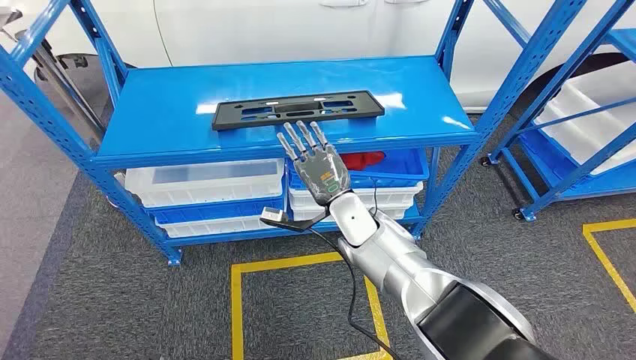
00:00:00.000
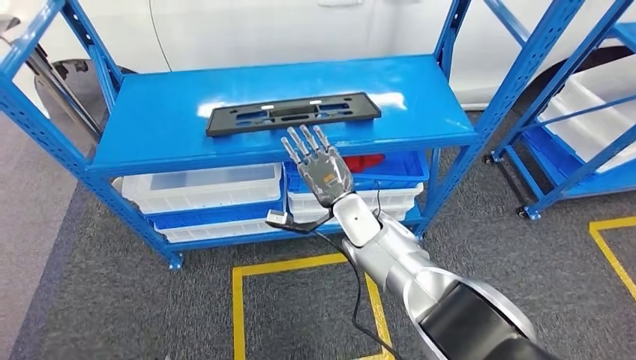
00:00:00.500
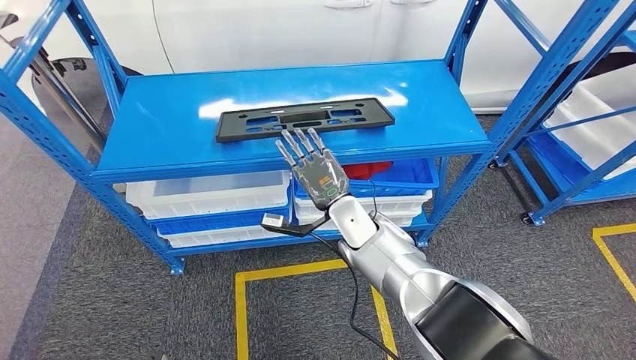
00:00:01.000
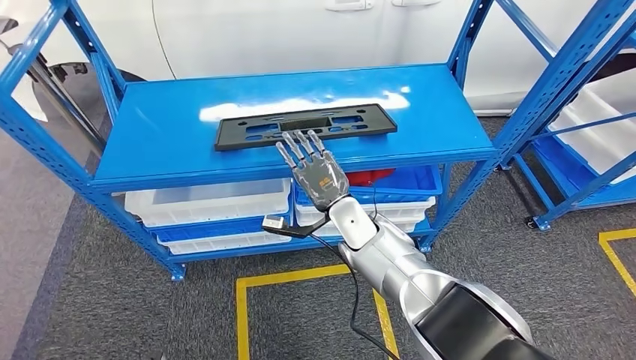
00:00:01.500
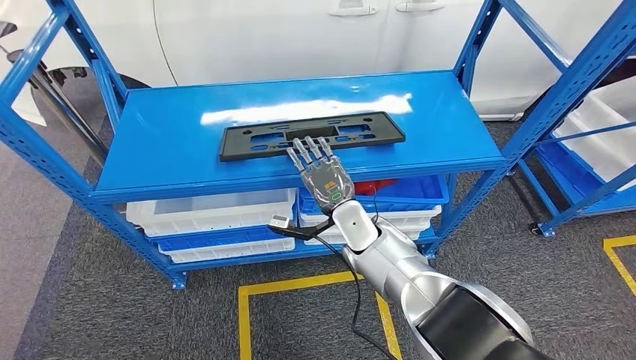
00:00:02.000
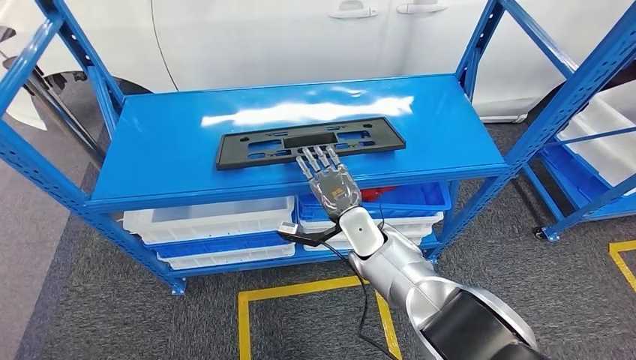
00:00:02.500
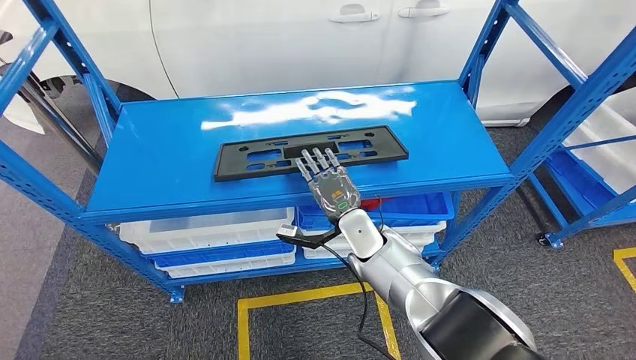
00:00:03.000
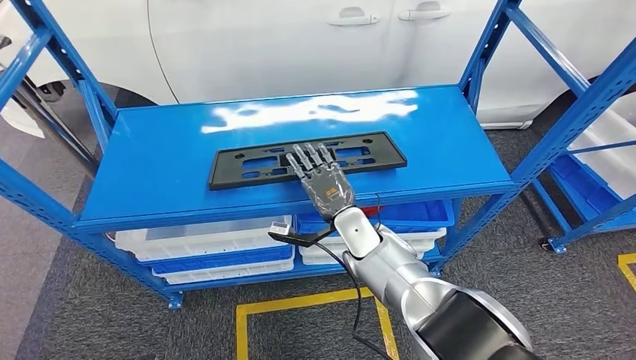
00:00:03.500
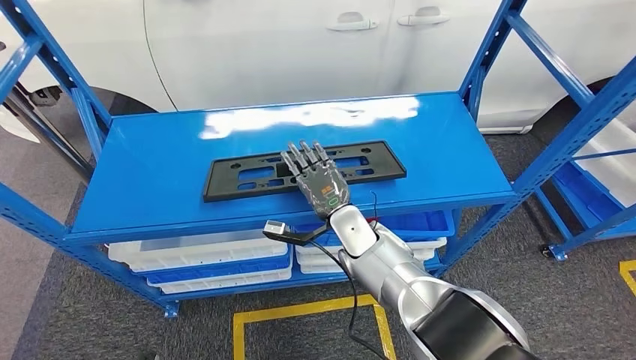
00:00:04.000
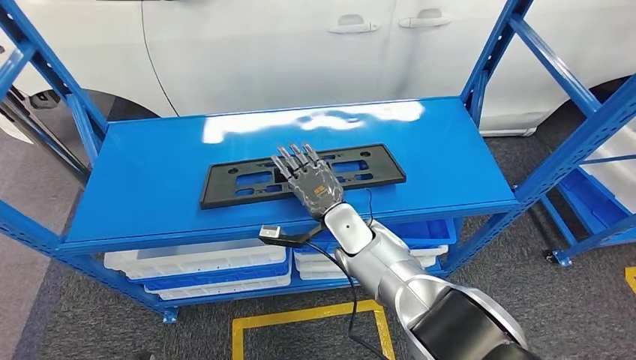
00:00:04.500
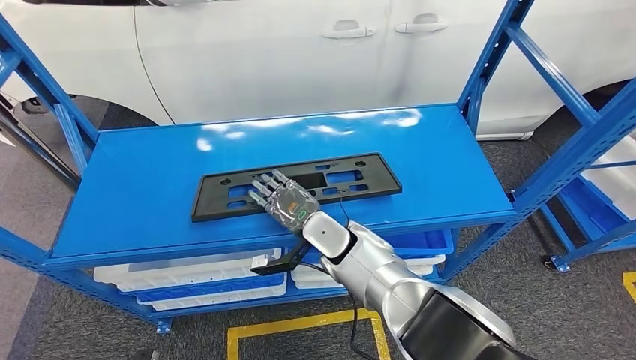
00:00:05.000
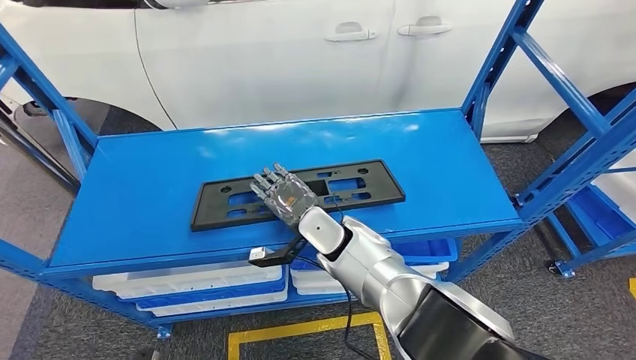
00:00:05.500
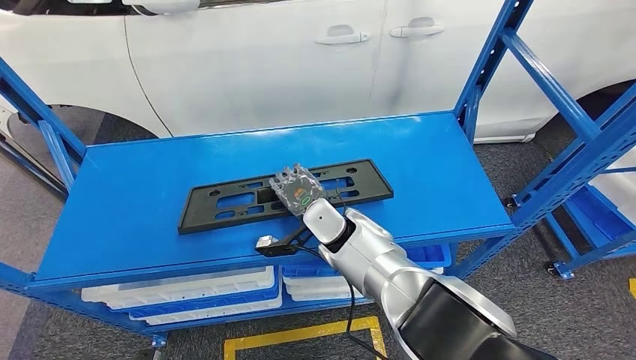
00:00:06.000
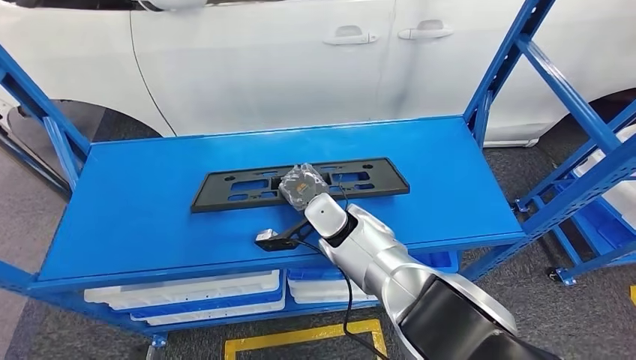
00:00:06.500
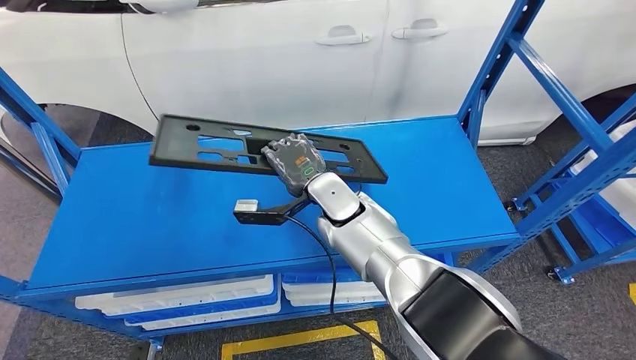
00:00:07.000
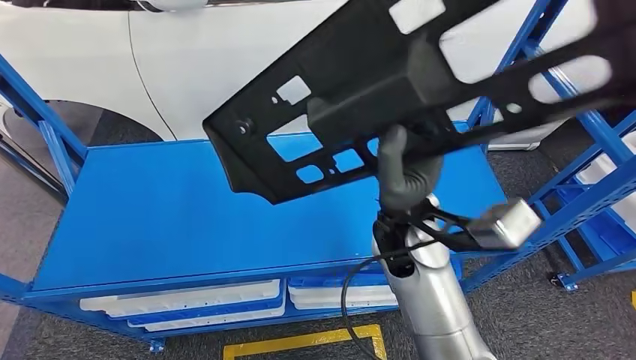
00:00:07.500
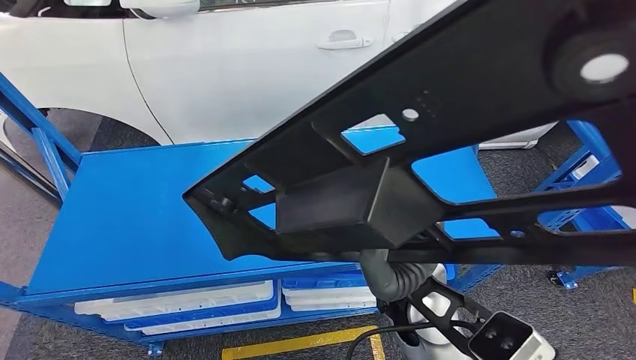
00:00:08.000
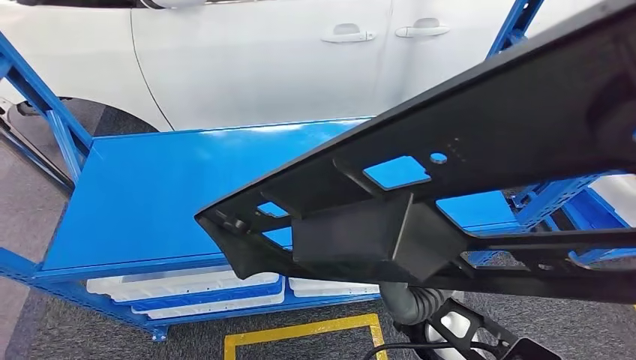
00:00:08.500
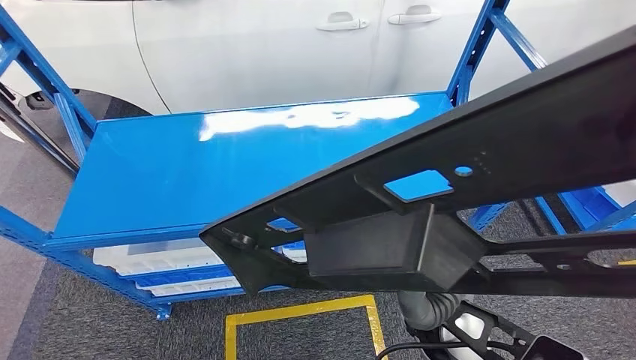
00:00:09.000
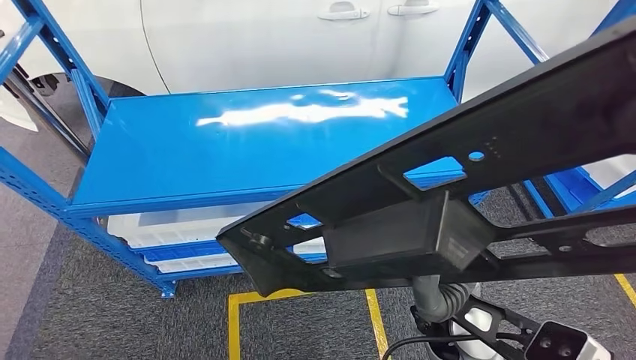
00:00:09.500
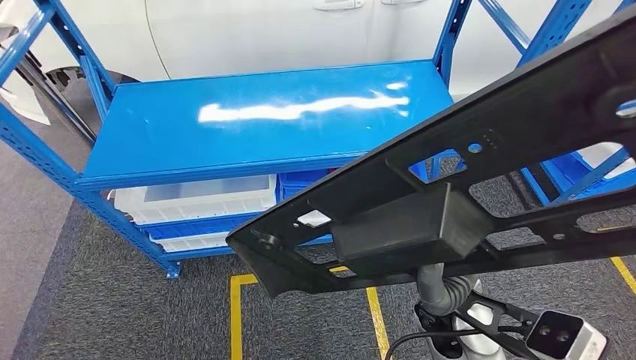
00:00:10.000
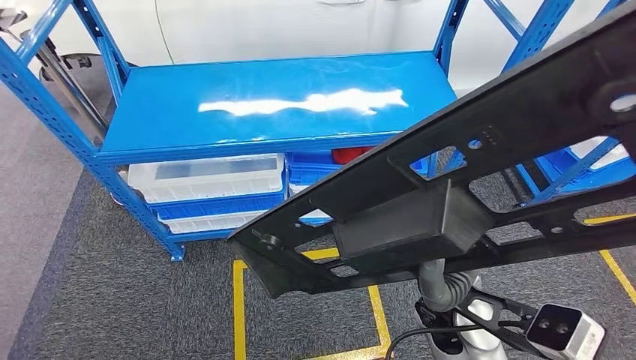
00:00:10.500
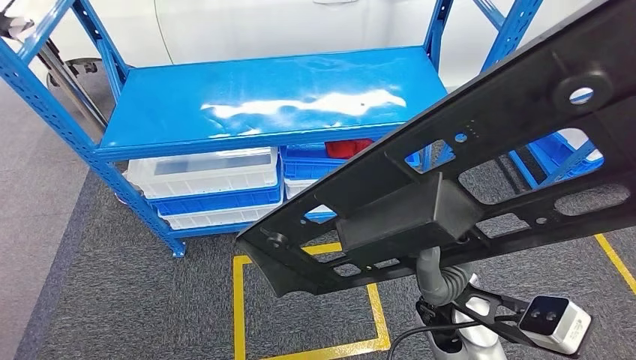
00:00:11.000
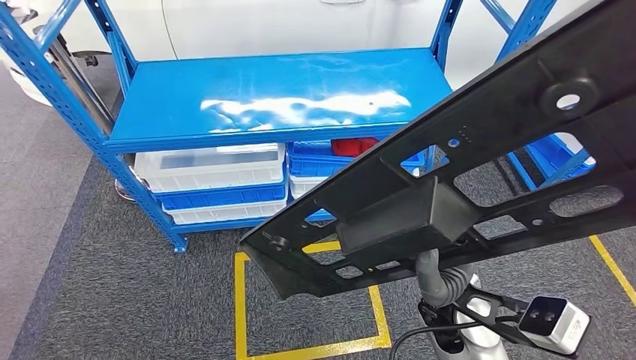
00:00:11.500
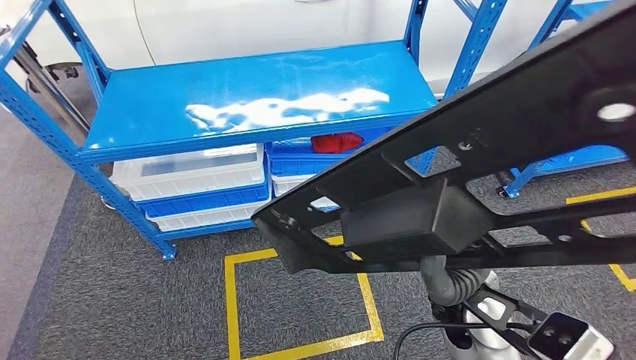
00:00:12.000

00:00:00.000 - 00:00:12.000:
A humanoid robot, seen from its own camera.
Step, 00:00:00.000 - 00:00:08.000: Pick up the large material from the shelf.

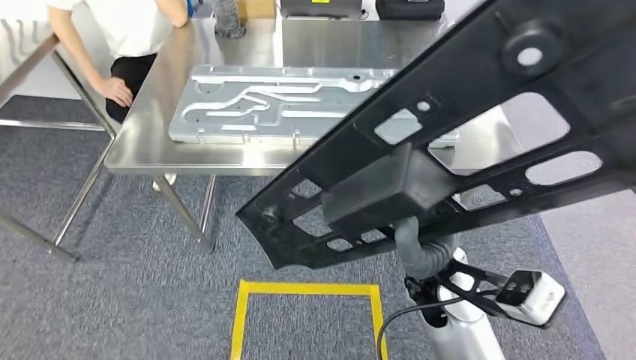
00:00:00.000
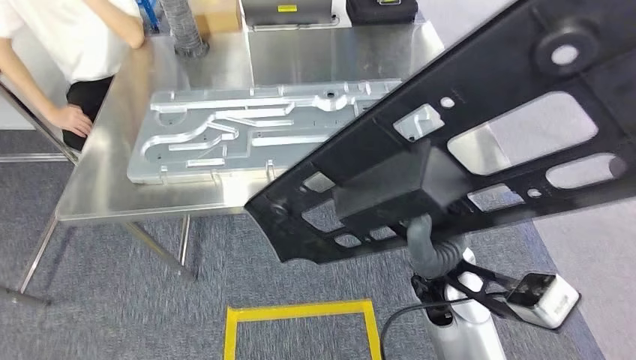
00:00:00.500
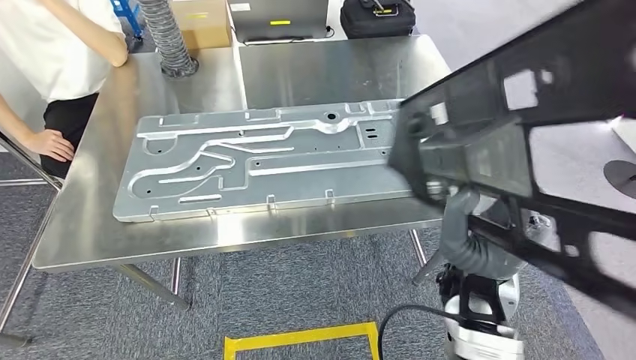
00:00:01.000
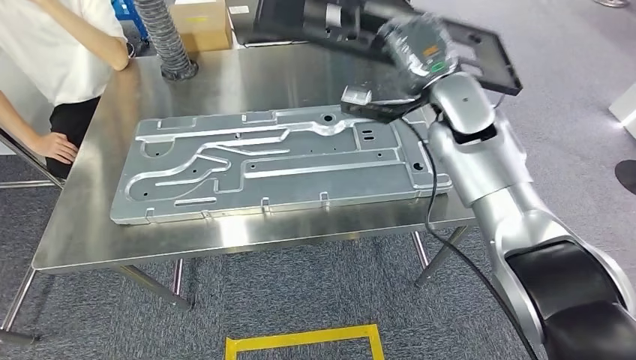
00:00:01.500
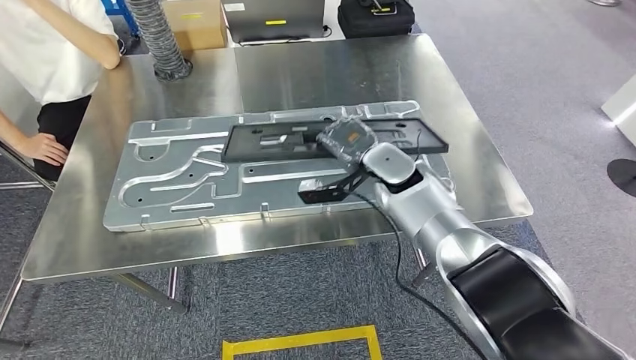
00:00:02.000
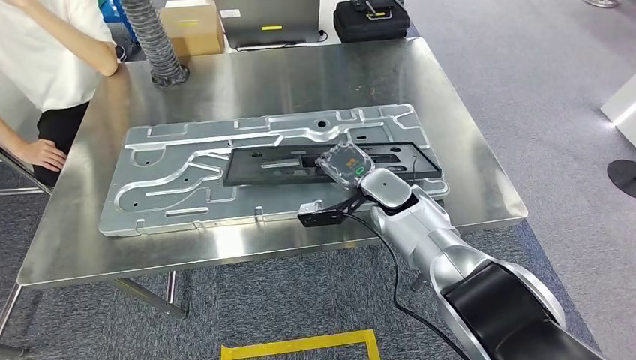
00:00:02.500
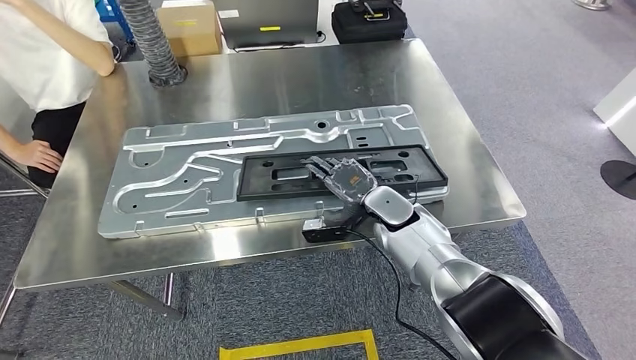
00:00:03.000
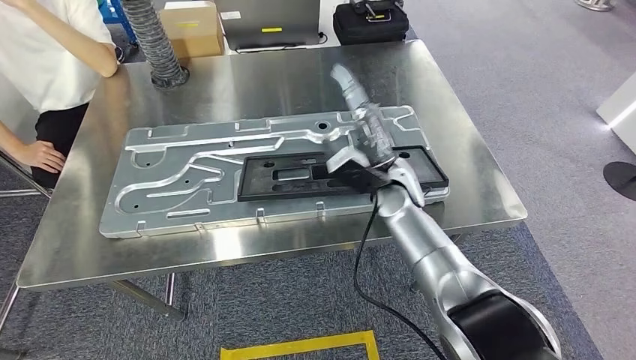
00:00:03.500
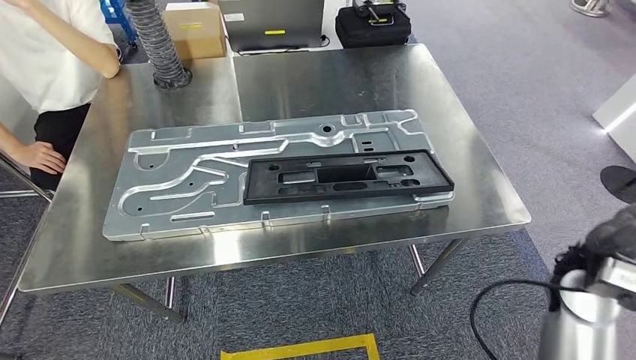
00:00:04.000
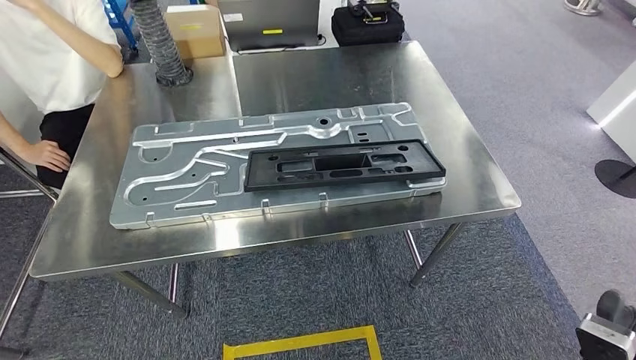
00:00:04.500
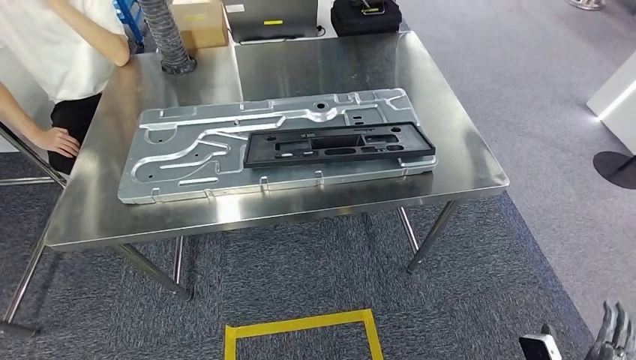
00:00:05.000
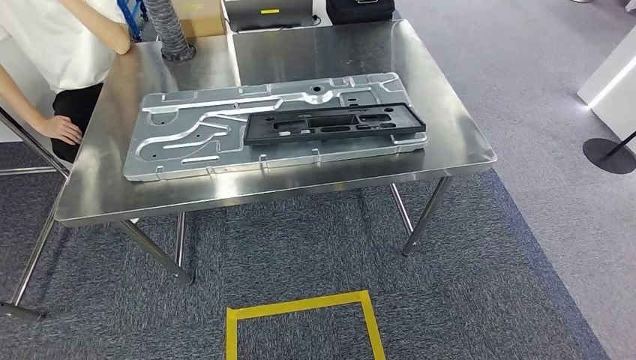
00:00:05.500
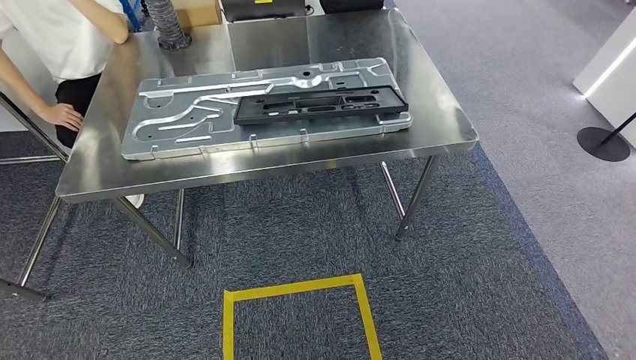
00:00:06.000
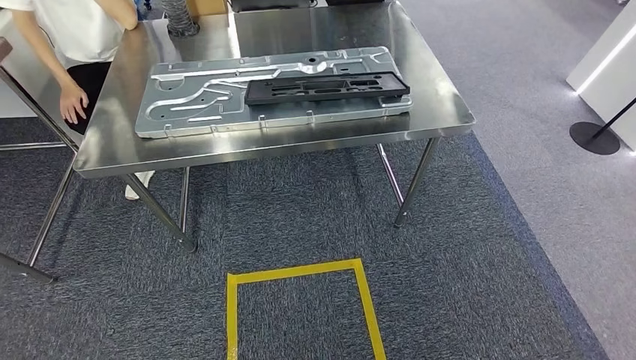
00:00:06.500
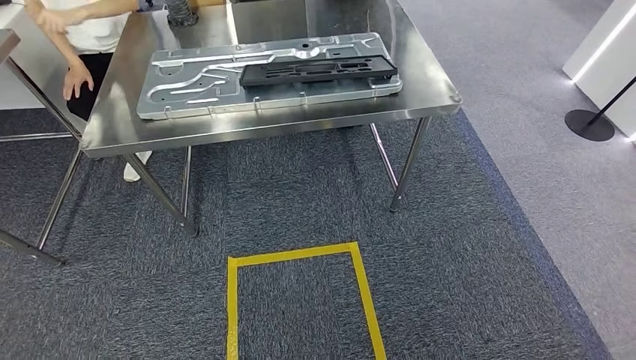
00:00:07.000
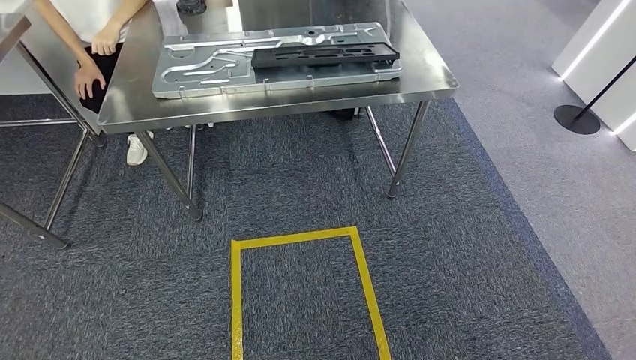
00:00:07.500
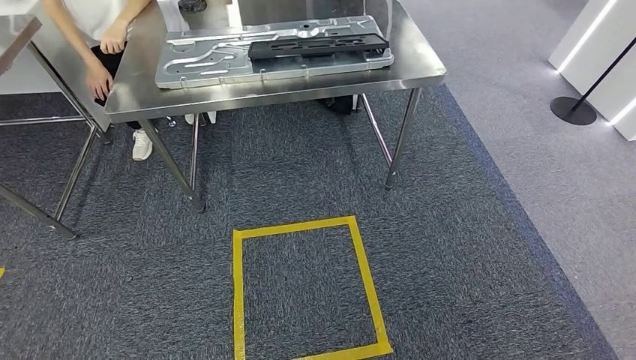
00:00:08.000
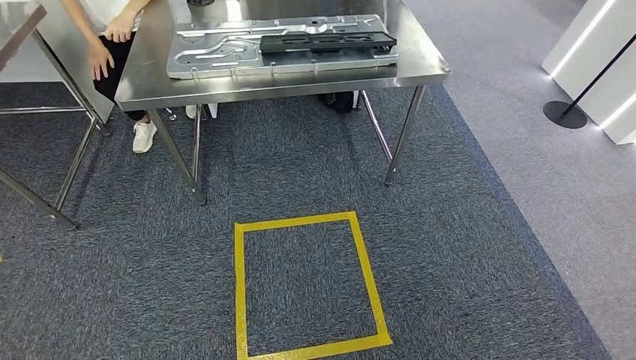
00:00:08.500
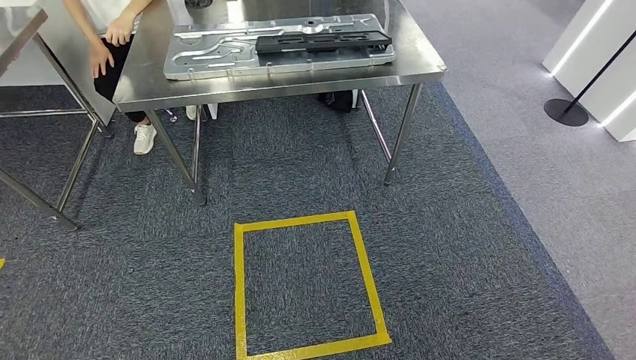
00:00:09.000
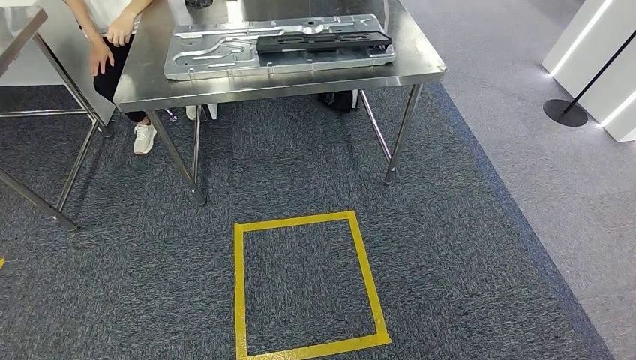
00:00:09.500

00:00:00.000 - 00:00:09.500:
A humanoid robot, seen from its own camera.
Step, 00:00:00.000 - 00:00:03.000: Move the large material to the workbench.
Step, 00:00:03.500 - 00:00:07.500: Insert the large material into the corresponding slot on the workbench.
Step, 00:00:08.000 - 00:00:09.500: Move to the initial position of the shelf.
